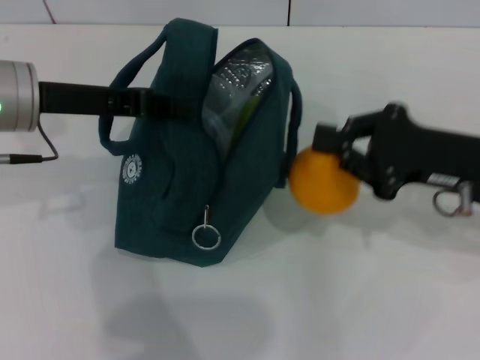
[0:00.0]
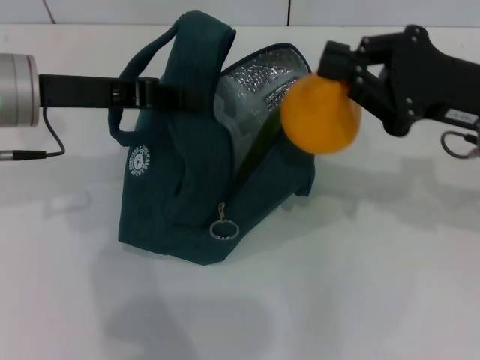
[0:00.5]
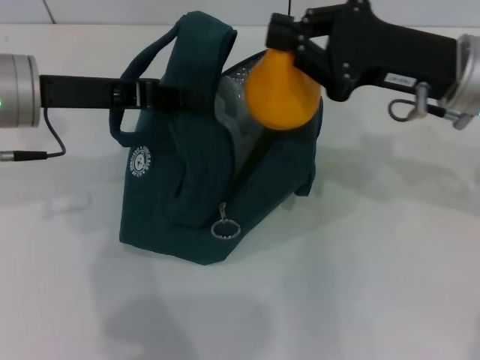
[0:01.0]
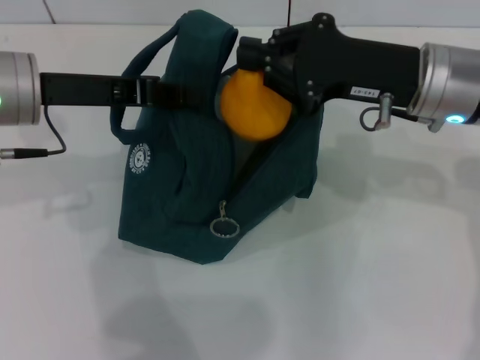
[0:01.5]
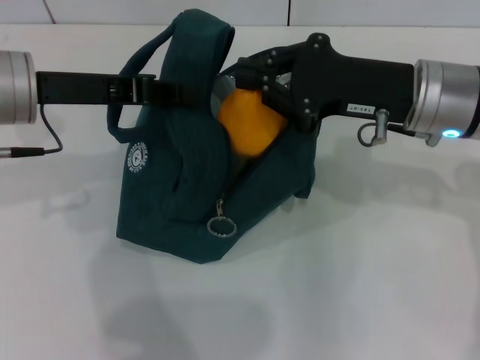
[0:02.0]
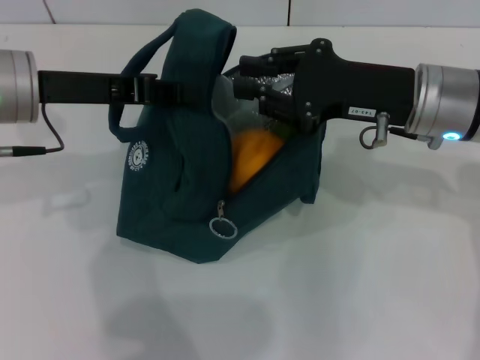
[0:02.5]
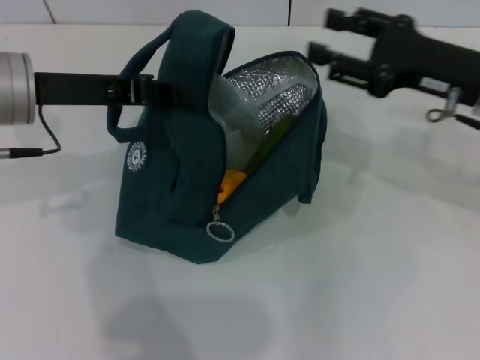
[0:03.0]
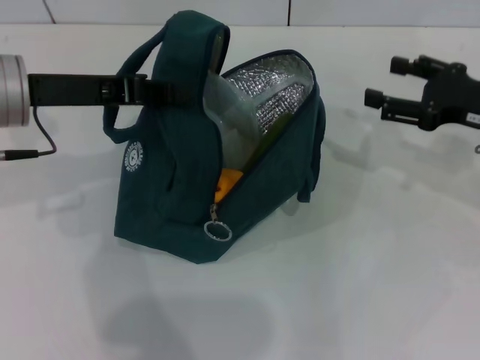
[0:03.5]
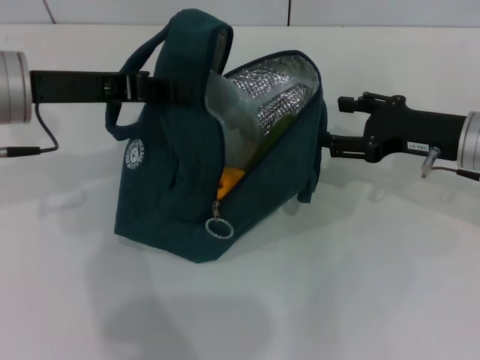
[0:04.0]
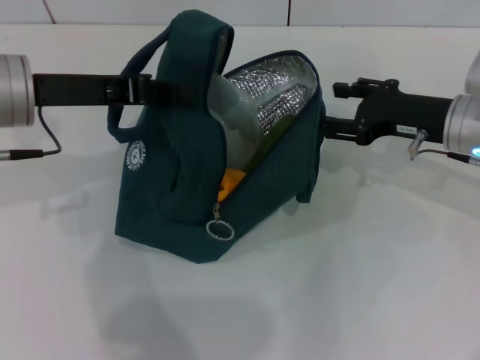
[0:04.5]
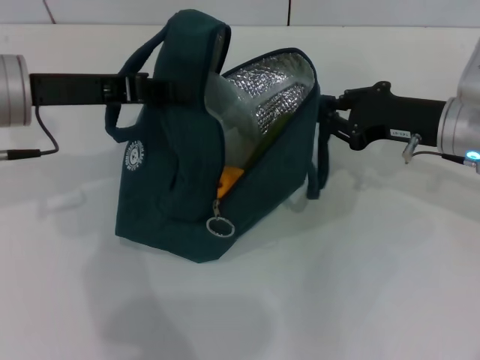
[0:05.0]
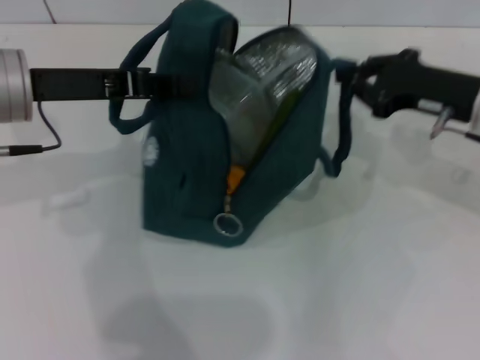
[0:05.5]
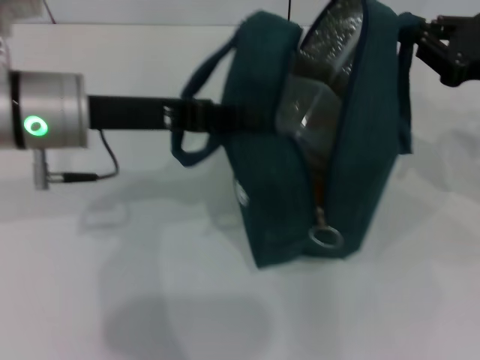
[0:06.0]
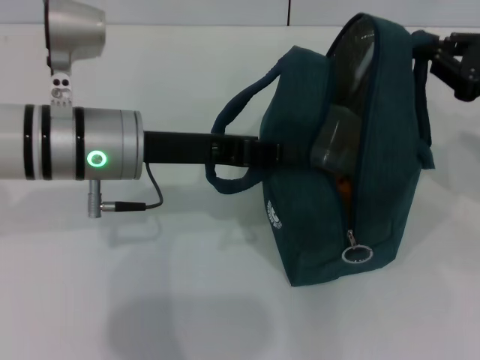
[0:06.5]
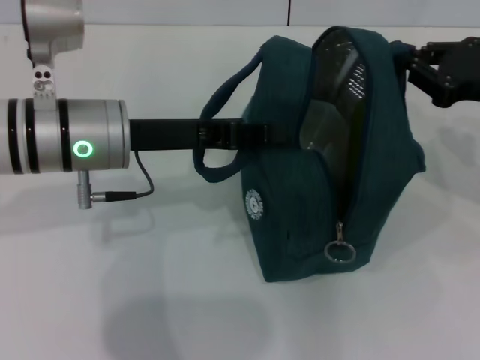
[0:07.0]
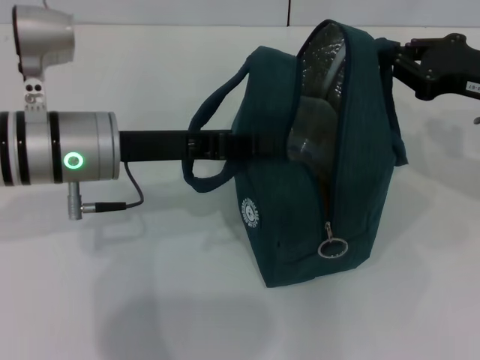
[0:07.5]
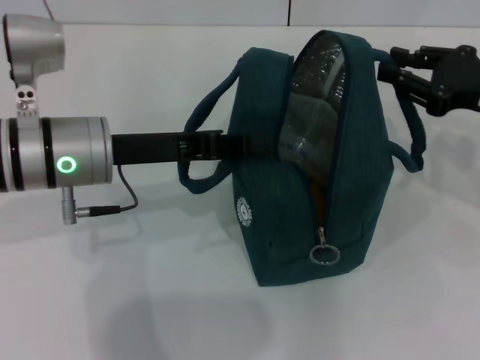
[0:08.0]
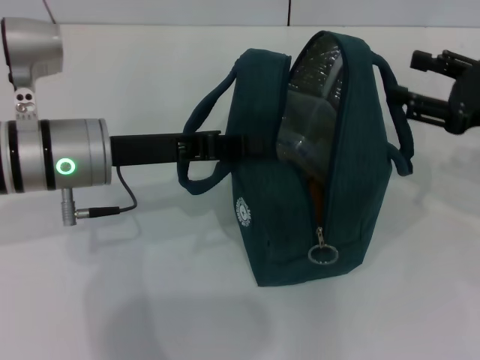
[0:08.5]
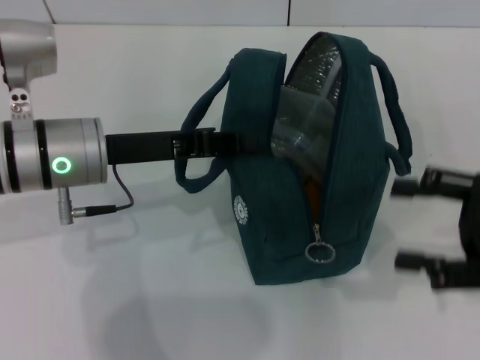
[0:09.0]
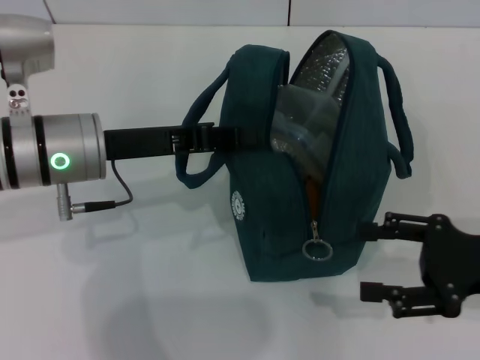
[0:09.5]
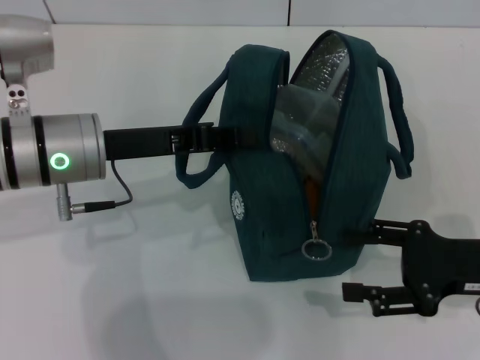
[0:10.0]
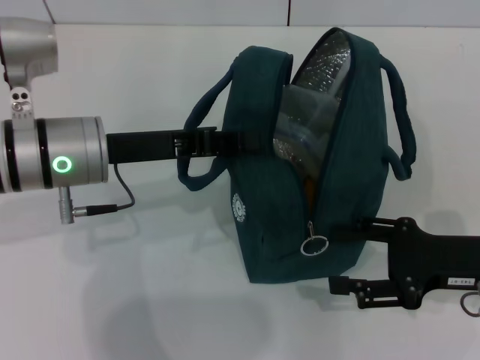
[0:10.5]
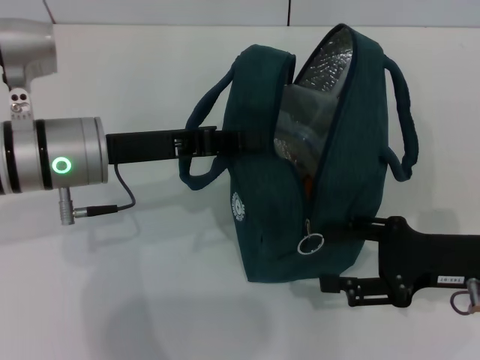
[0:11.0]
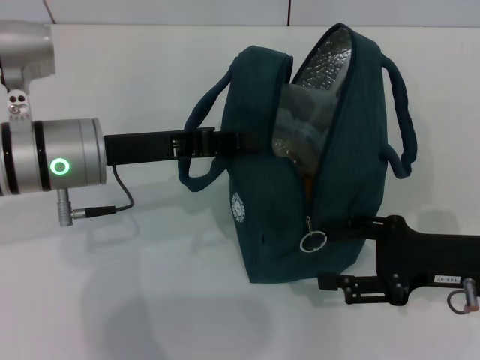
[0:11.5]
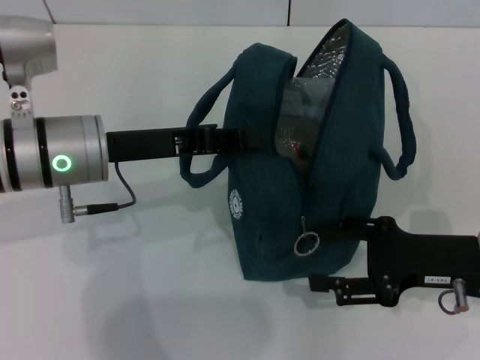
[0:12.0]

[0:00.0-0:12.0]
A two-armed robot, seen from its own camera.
Step, 0:03.0 to 0:08.0: Hold the lunch bag with your right hand.
0:00.0 to 0:02.0: The right gripper travels to the left by approximately 5 cm.
0:02.0 to 0:04.0: The right gripper is displaced to the right and downward by some 10 cm, and opens up.
0:04.0 to 0:06.0: The right gripper moves upward and to the right, some 10 cm, and closes up. Meanwhile the left gripper moves roughly 5 cm.
0:08.0 to 0:10.0: The right gripper moves backward and downward, approximately 10 cm, and opens its fingers.
0:10.0 to 0:12.0: The grippers stay close to where they were, moving slightly.

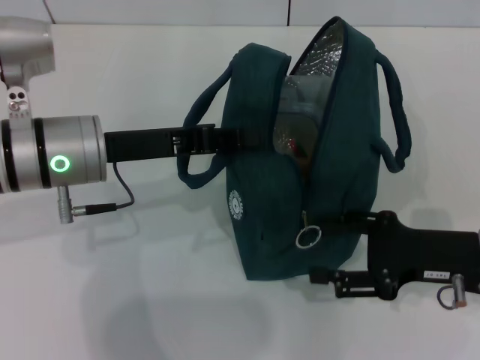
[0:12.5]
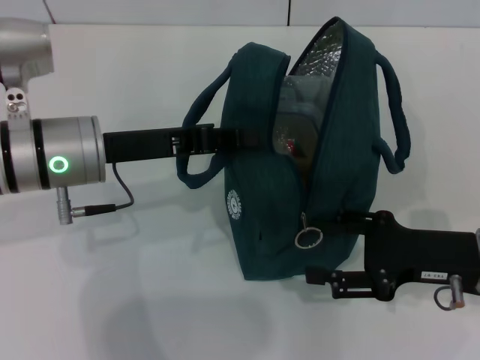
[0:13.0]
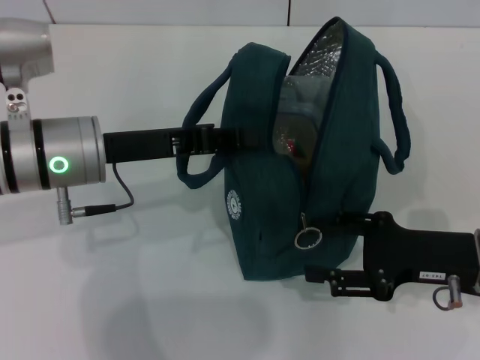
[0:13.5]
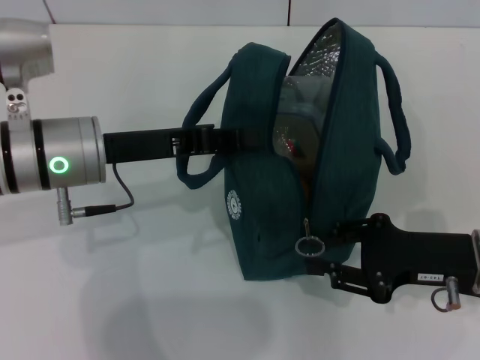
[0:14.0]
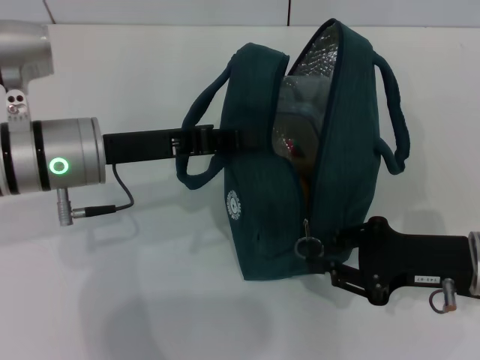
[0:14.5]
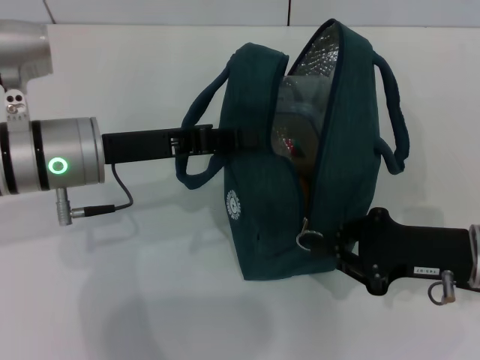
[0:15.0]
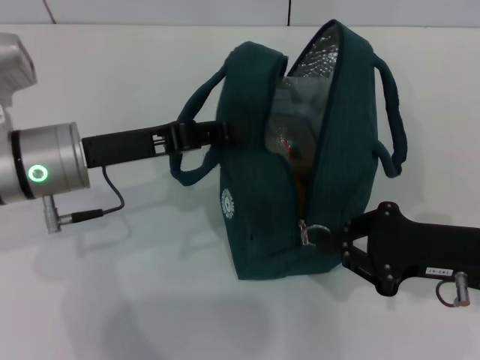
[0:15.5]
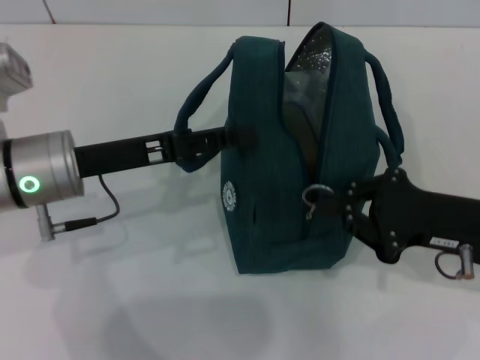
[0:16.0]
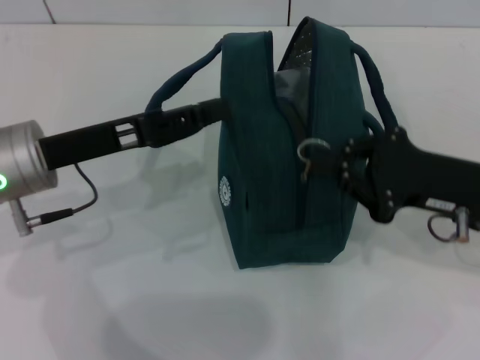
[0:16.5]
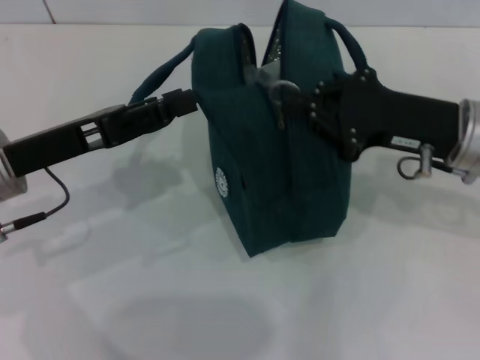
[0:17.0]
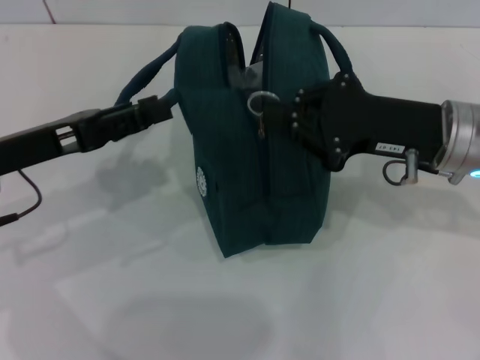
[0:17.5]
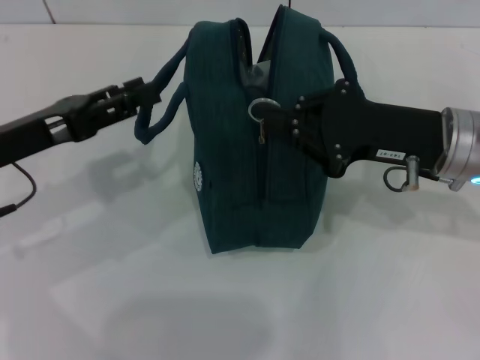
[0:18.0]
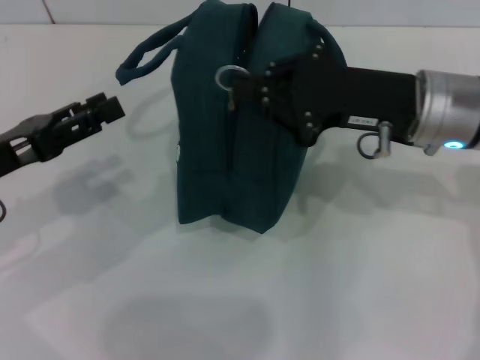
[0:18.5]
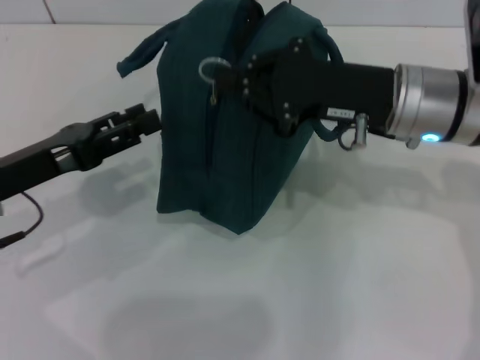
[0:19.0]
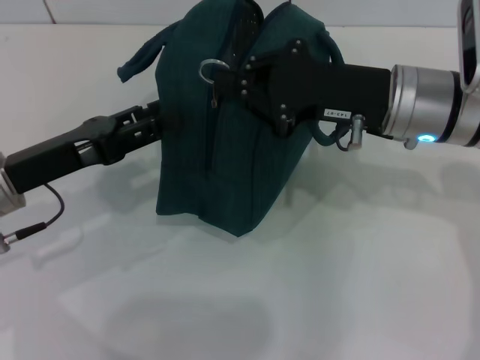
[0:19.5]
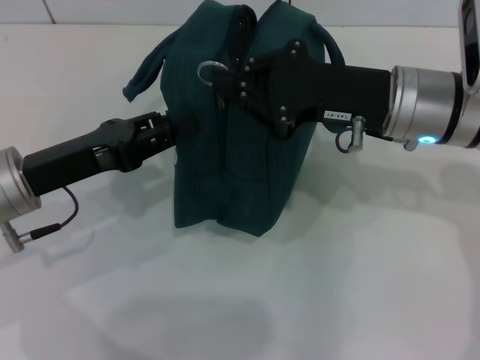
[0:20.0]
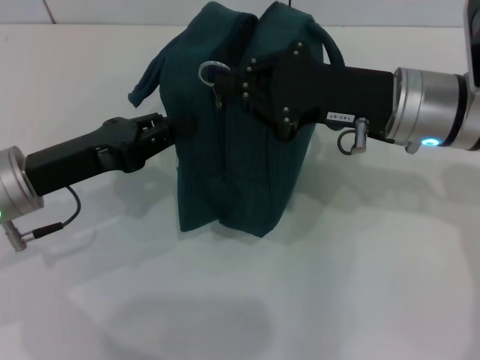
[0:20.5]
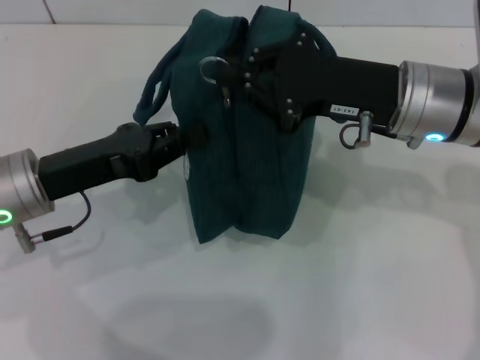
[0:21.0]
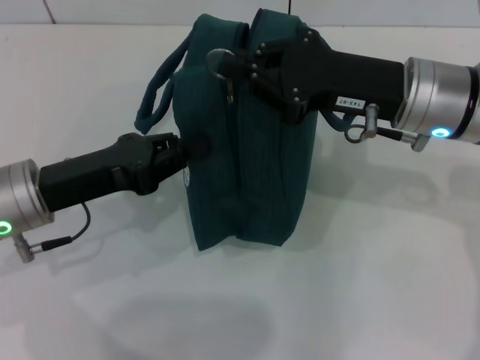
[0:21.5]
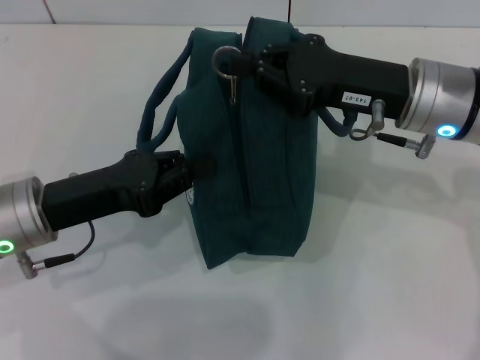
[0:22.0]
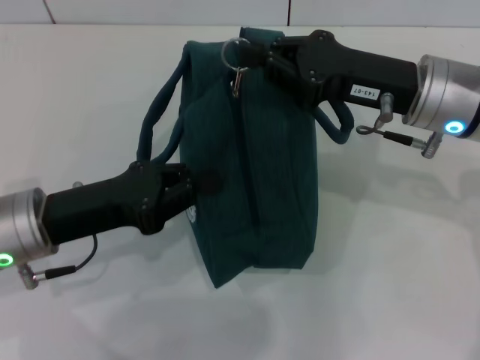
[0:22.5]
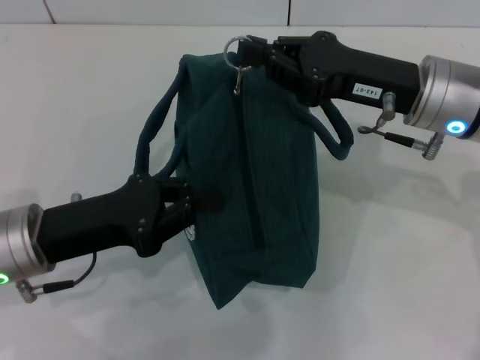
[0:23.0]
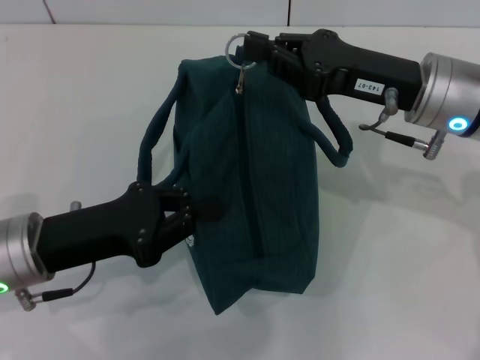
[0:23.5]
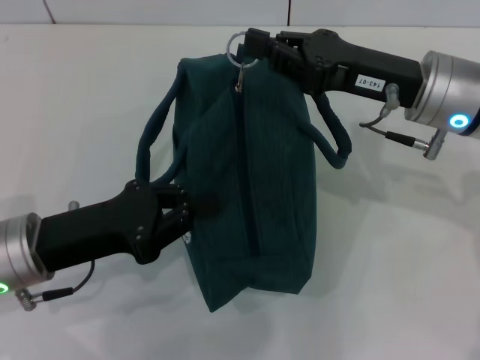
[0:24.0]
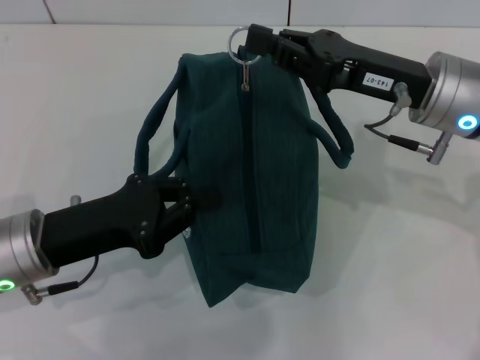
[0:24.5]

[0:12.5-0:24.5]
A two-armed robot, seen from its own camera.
Step, 0:12.5 to 0:15.5: Hold the lunch bag with your left hand.
0:12.5 to 0:14.5: The right gripper closes its fingers.
0:14.5 to 0:16.5: The right gripper changes place by approximately 5 cm; the left gripper opens its fingers.
0:16.5 to 0:18.5: The right gripper is displaced to the left, forward and upward by approximately 10 cm, while the left gripper travels to the left by roughly 5 cm.
0:18.5 to 0:20.5: The left gripper is displaced to the right by some 5 cm, and closes.
0:22.5 to 0:24.5: The grippers move only a little.

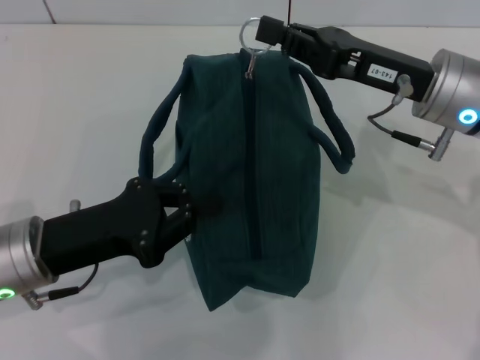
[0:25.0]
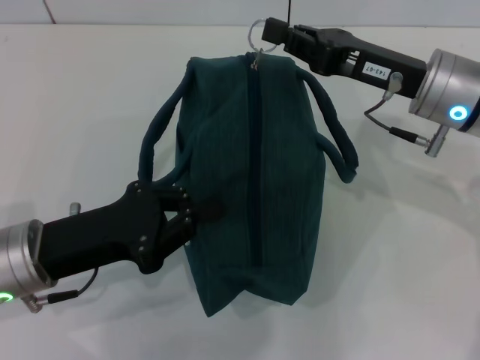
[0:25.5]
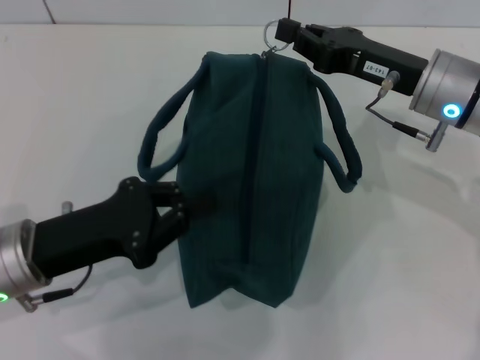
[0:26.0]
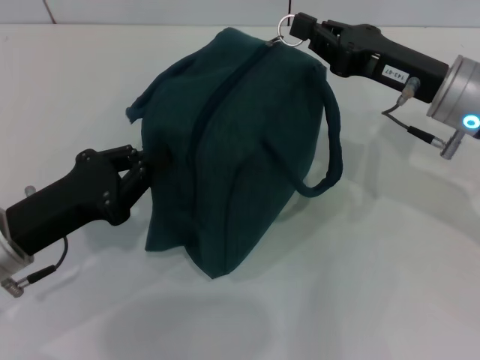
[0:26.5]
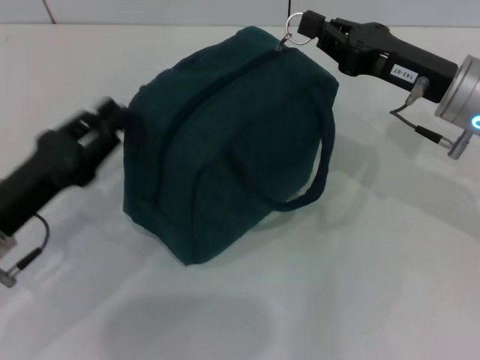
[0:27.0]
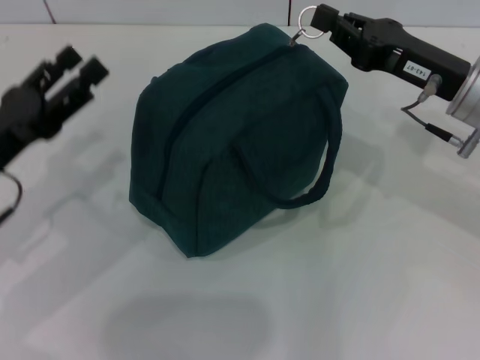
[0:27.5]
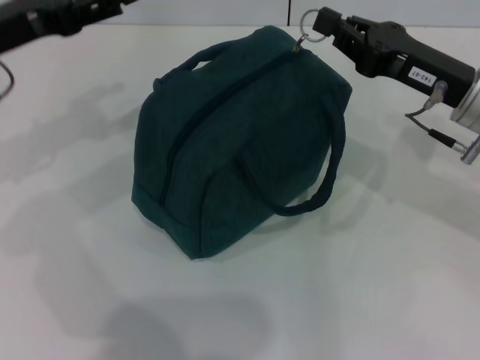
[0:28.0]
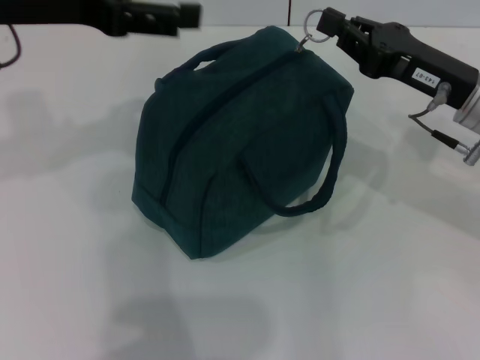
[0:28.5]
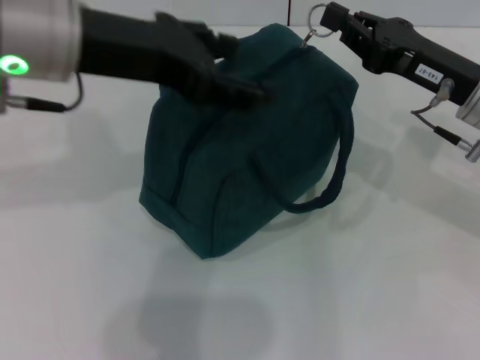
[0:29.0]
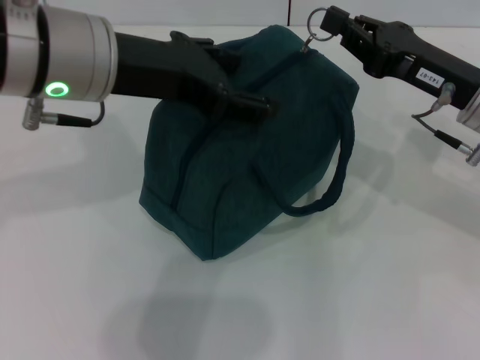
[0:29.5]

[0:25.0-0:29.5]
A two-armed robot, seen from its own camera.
0:27.0 to 0:29.5: The left gripper moves upward, to the right and forward, approximately 25 cm, and opens.
